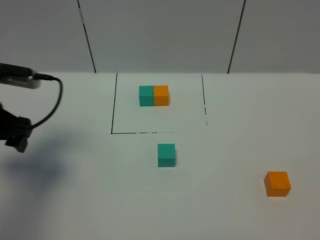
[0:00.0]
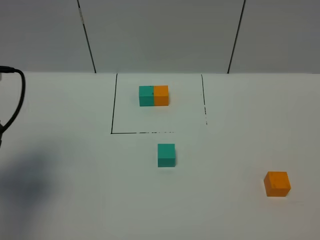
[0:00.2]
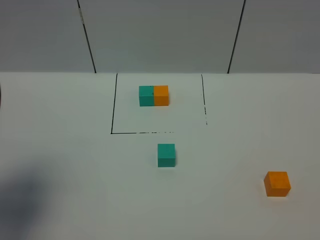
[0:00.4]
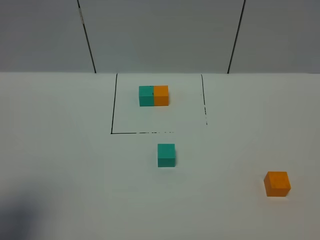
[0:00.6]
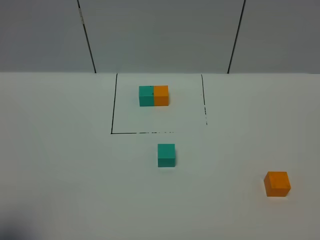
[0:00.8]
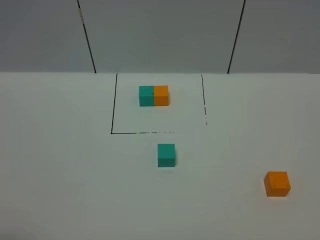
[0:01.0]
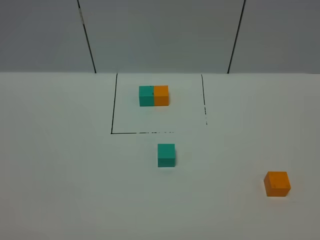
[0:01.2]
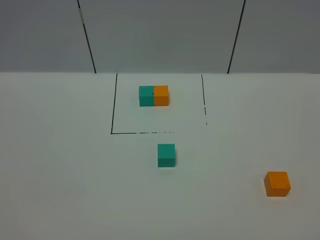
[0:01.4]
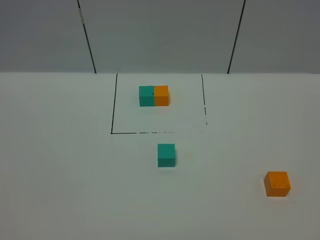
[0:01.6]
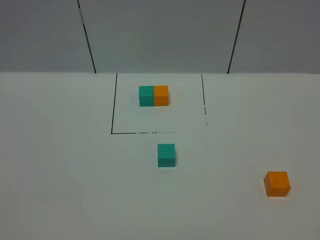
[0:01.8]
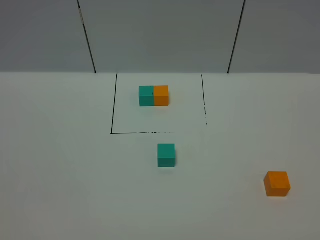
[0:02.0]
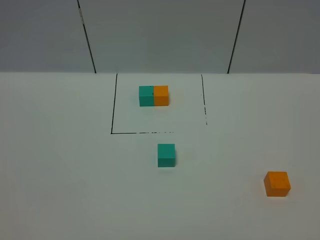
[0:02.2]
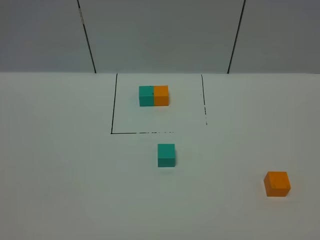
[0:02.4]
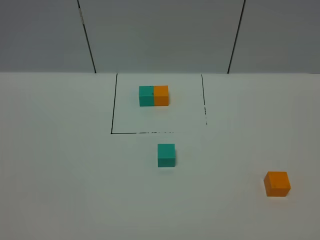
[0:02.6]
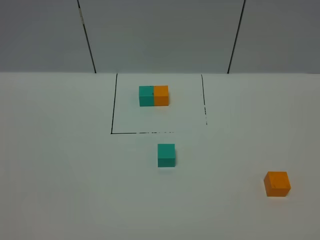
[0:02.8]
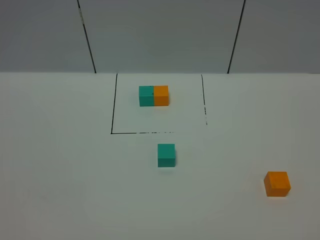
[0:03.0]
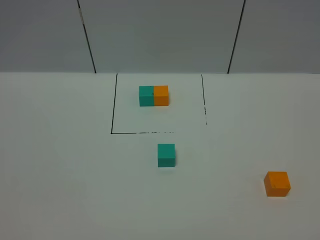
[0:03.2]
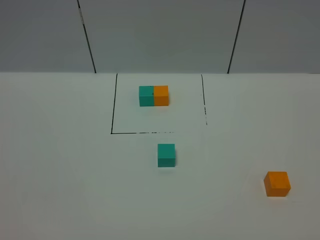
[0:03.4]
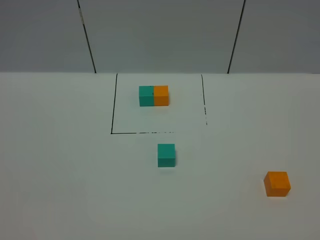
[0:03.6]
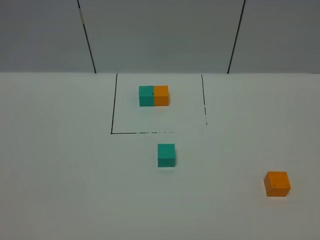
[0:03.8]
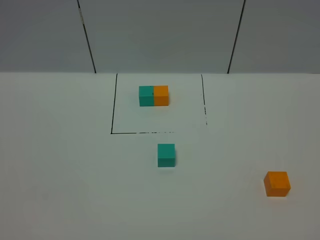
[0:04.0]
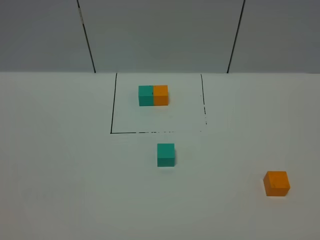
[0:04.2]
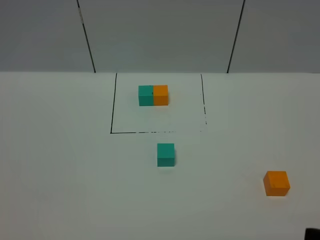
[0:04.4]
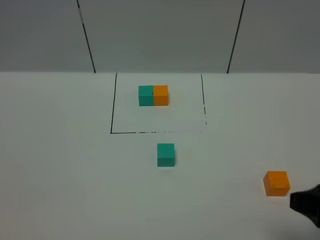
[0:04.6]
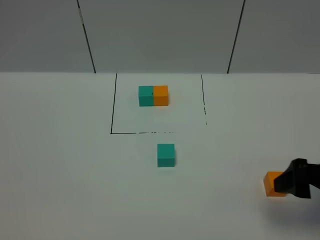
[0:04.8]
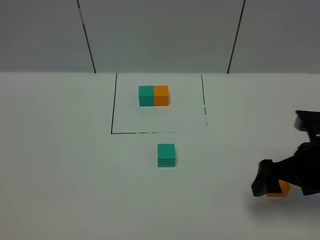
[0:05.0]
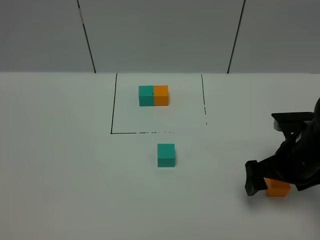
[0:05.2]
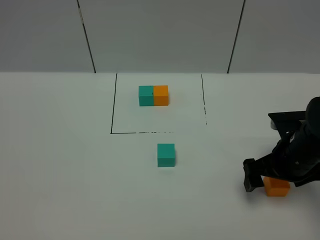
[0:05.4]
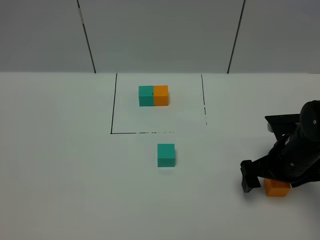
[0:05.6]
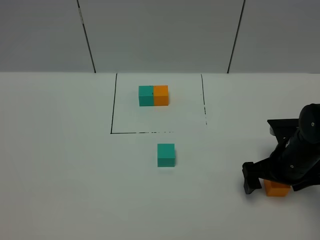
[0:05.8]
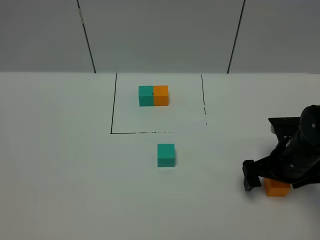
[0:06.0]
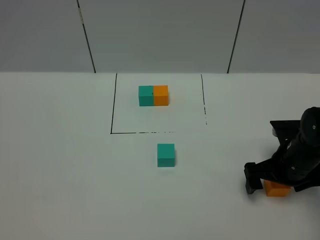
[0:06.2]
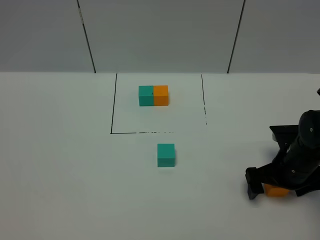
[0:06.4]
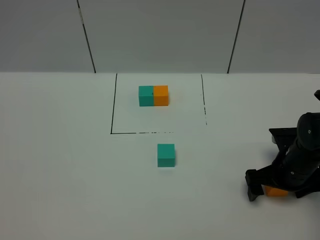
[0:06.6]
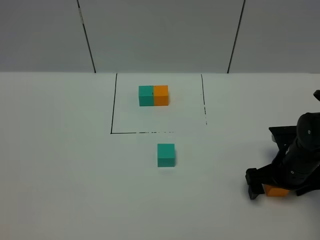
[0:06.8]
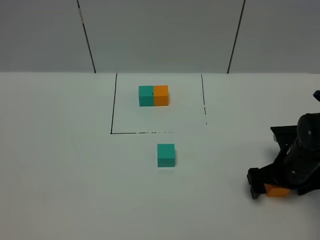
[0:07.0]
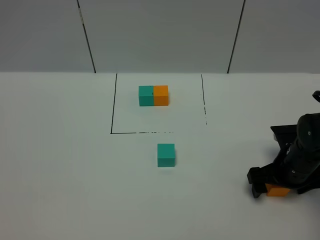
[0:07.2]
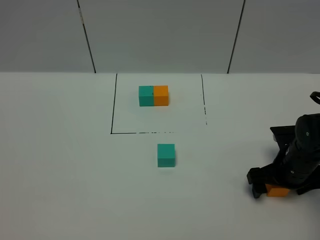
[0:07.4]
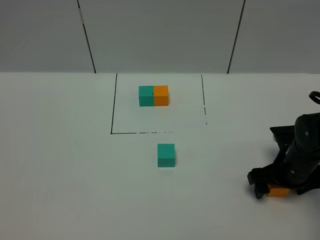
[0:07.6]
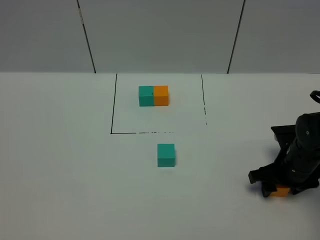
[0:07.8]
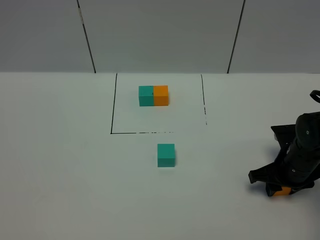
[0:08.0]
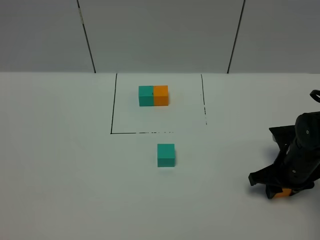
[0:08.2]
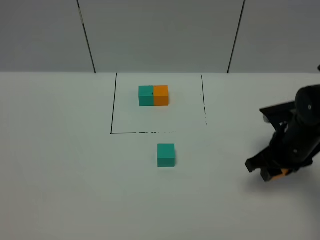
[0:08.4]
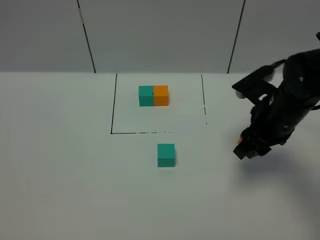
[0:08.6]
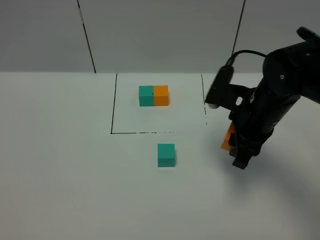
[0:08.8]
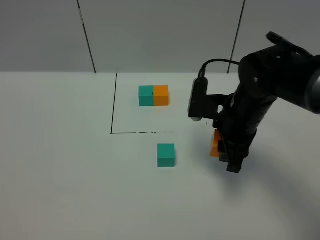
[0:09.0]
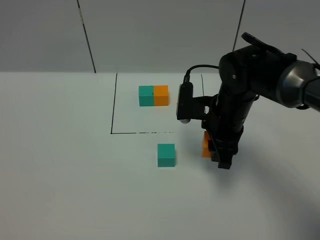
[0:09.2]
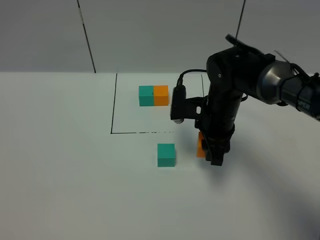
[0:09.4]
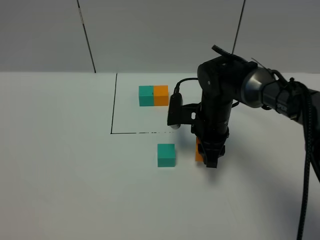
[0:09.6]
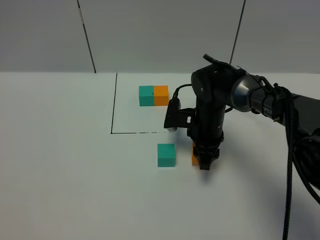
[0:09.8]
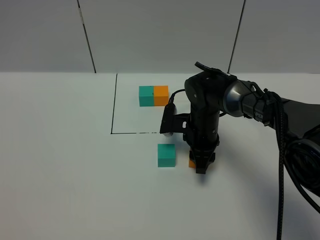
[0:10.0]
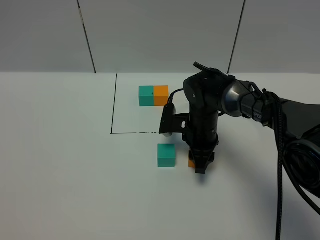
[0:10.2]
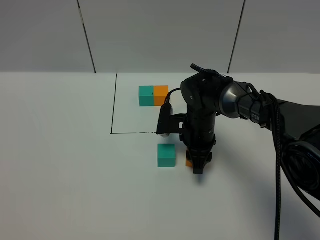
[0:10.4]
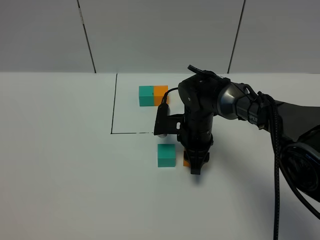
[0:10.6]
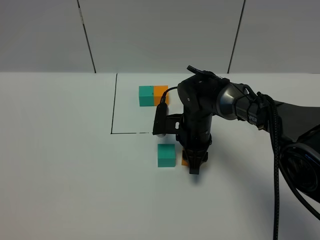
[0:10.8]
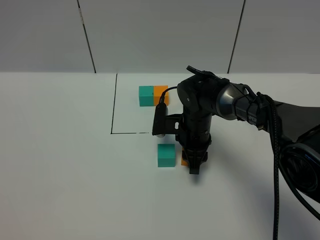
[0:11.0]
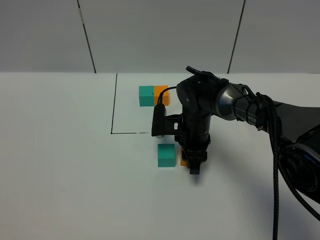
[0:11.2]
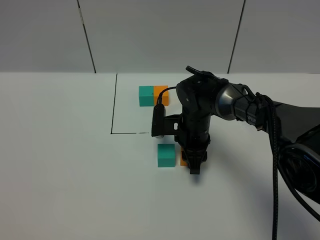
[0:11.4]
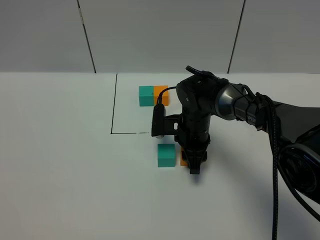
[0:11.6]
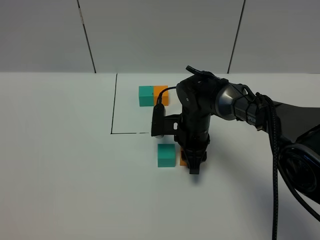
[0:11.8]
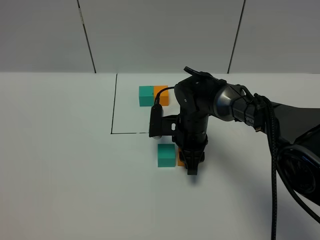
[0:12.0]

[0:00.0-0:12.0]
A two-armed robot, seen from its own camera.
Task of the whole recording: According to the building block template in front, assemble the scattered blocks together.
0.0 to 1.6 s: The left gripper shifts some 30 cm backward.
1.6 to 3.0 s: Both grippers stay put.
4.4 to 6.0 s: The right gripper is displaced forward and downward by about 30 cm.
6.0 to 7.6 s: The grippers make only small movements.
7.6 to 9.0 s: The right gripper goes some 15 cm to the left and upward, and closes up.
9.0 to 10.4 s: The right gripper shifts some 15 cm downward, forward and to the left.
10.4 to 12.0 s: There are only small adjustments of the grippers.

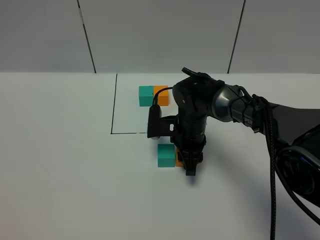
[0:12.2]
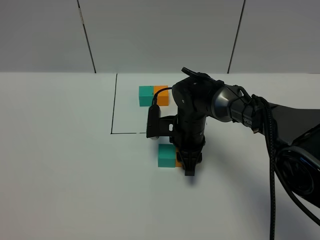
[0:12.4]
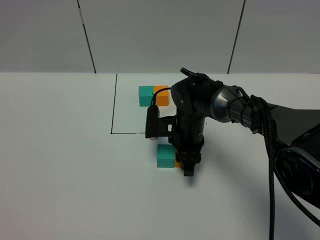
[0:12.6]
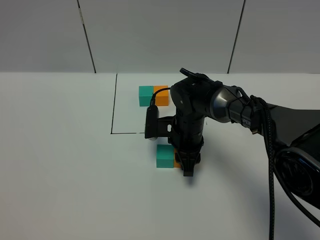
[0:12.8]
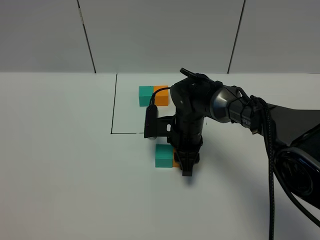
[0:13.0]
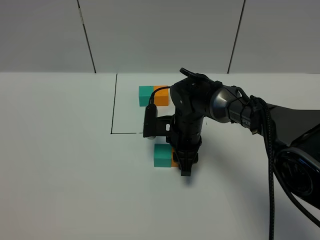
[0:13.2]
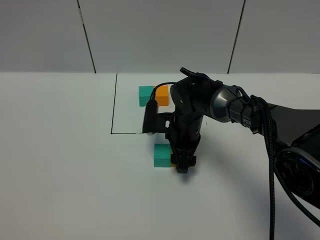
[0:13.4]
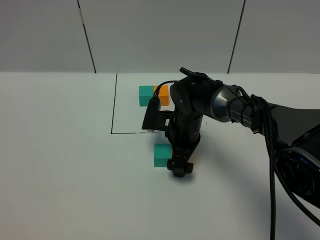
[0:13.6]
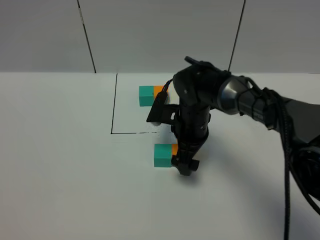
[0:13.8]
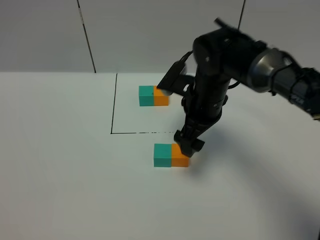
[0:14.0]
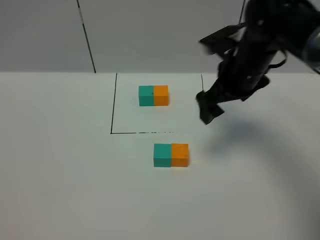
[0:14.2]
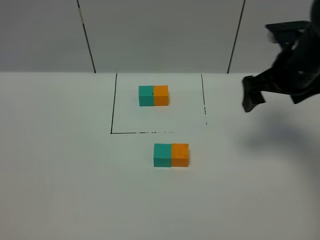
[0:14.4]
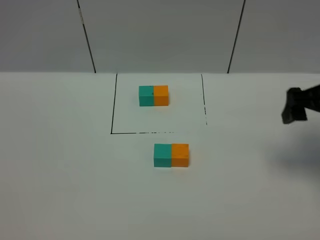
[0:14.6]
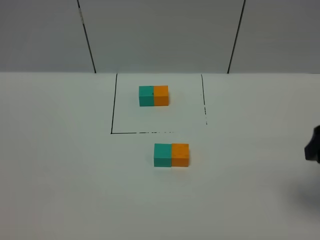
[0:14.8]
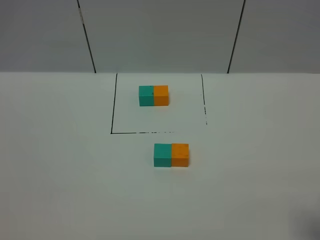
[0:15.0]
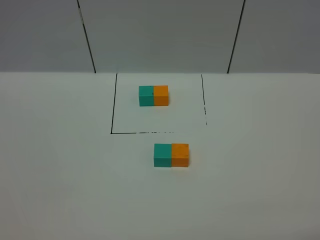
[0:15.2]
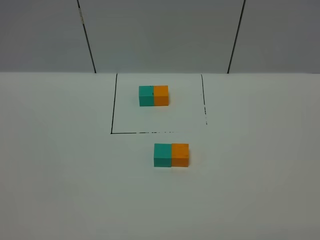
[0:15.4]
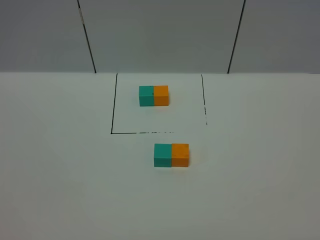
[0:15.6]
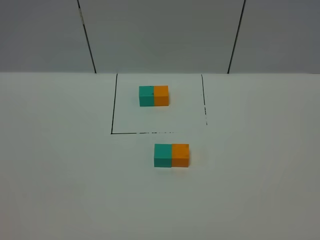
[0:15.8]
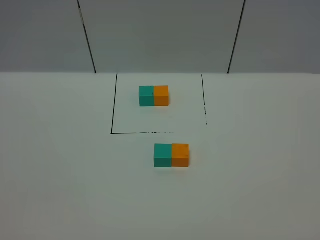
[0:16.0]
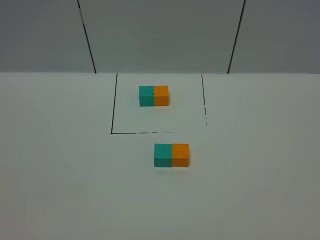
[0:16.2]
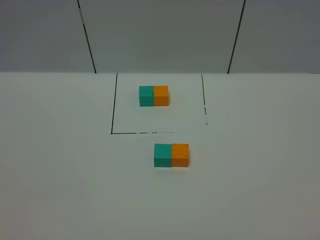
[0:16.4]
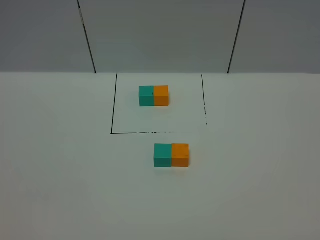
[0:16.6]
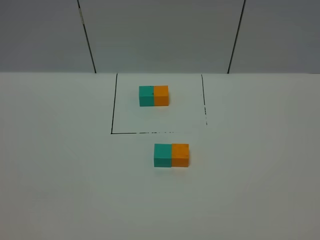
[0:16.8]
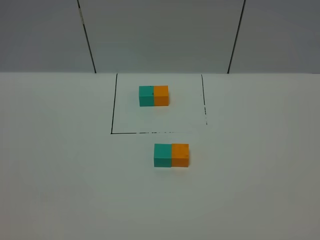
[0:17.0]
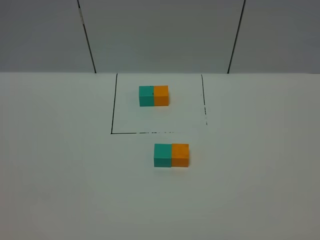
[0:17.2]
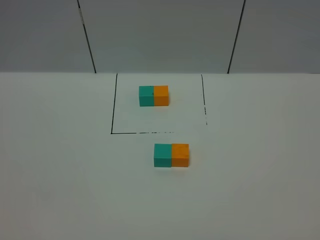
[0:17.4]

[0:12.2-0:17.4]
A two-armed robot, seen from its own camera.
Task of the whole recording: According to the building block template in front, assemble the scattered blocks together.
12.2 to 14.0 s: The right gripper goes about 10 cm upward, and opens its fingers.
14.0 to 15.6 s: The right gripper heads backward and to the right, covering some 40 cm.

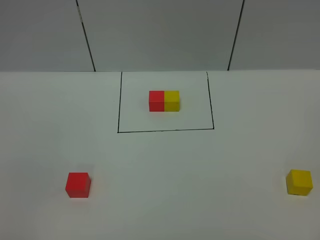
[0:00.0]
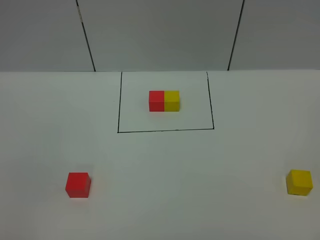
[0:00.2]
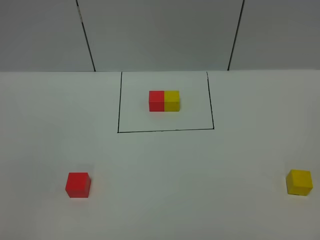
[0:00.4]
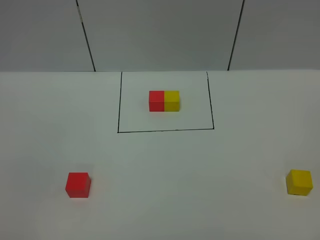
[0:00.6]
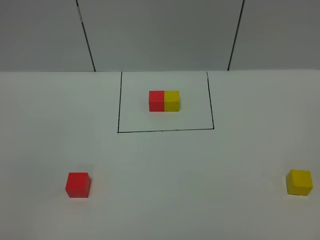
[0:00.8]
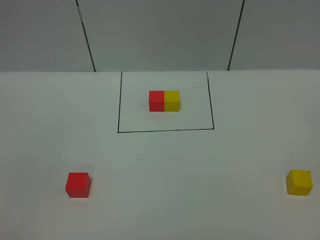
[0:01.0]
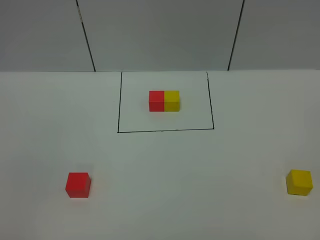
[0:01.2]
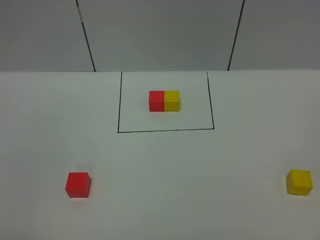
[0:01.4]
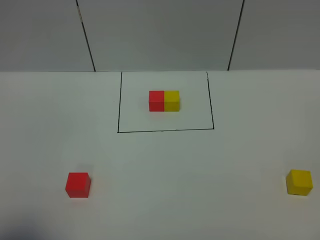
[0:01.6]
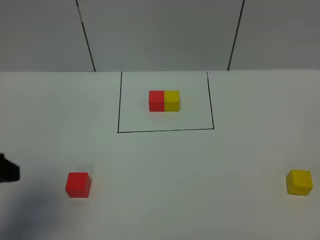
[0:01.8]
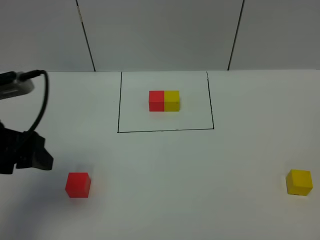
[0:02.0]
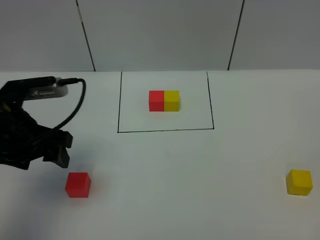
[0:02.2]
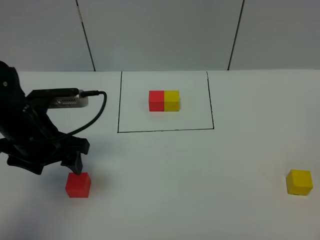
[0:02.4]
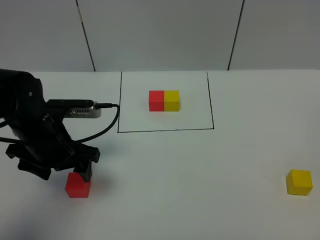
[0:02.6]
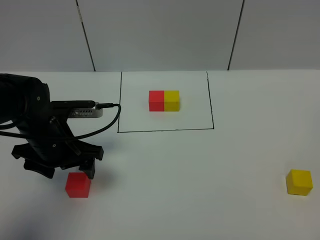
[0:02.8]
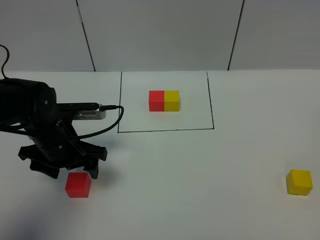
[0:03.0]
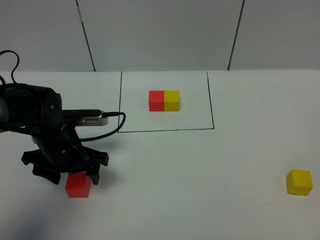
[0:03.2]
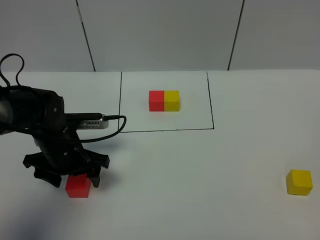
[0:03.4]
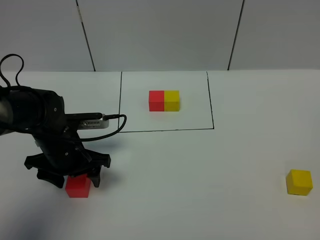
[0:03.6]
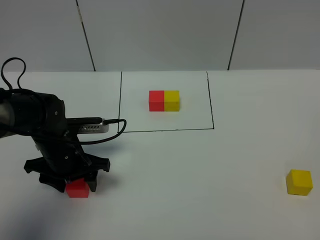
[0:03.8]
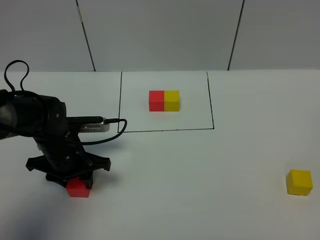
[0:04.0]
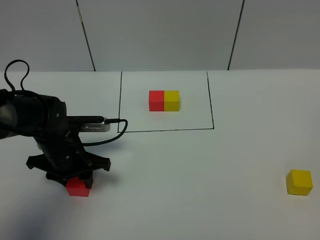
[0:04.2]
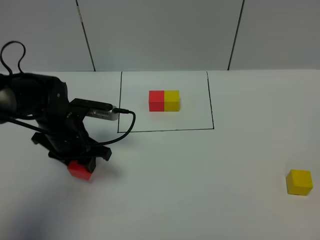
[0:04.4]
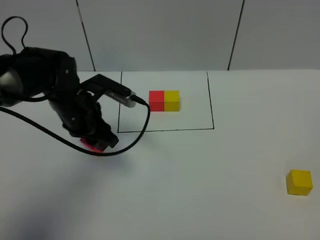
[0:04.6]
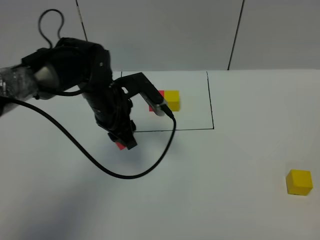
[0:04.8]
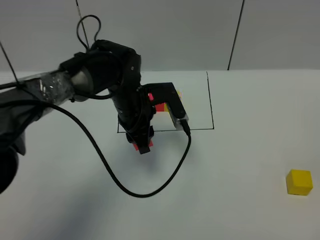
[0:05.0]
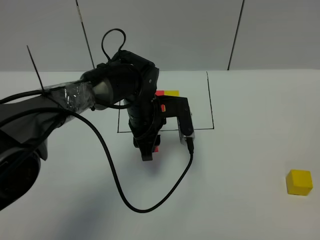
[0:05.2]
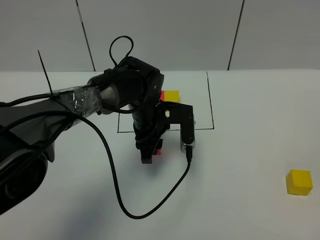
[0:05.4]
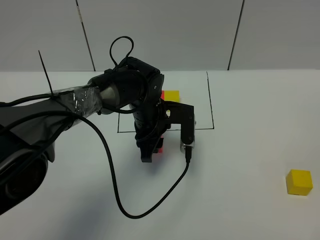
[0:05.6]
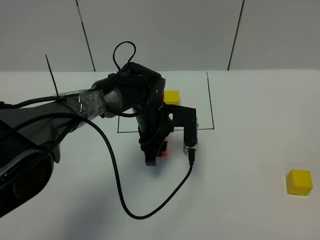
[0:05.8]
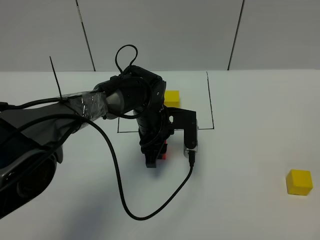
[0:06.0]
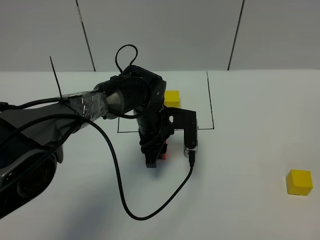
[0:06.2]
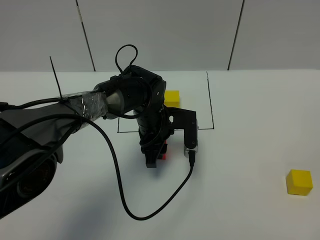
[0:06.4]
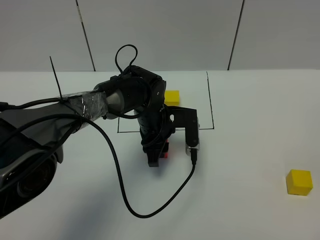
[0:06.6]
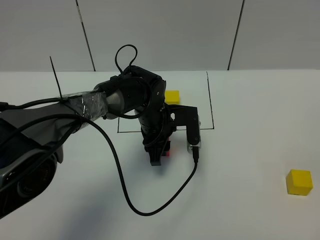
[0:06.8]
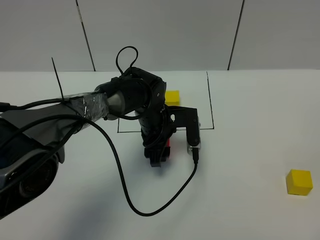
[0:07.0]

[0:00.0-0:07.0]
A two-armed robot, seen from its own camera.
Task of the whole recording: According to the building block template in front, assemble the scattered blocks together.
1.4 to 2.8 s: The left gripper travels forward and downward by about 30 cm.
2.8 to 4.2 s: The left gripper heads downward, covering about 5 cm, and closes.
4.2 to 5.6 s: The left gripper goes some 20 cm to the right and forward.
5.6 to 7.0 s: The left gripper opens its fingers.
